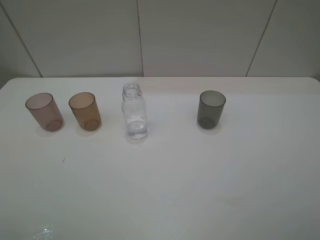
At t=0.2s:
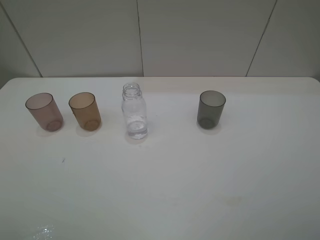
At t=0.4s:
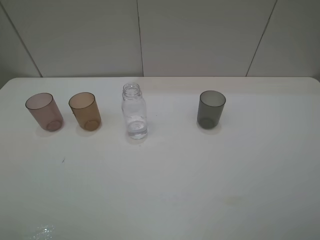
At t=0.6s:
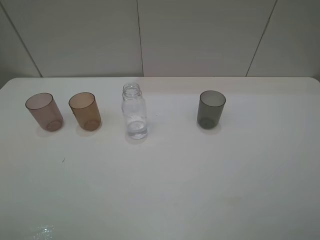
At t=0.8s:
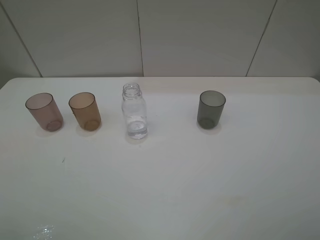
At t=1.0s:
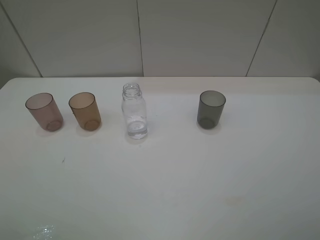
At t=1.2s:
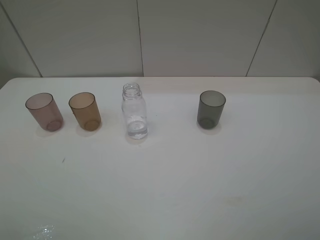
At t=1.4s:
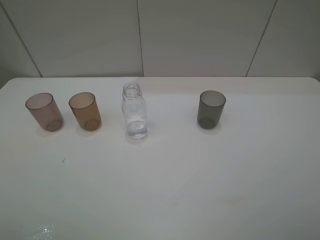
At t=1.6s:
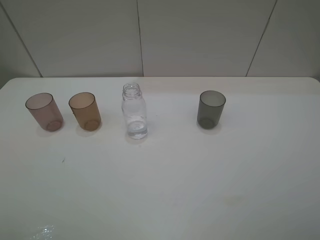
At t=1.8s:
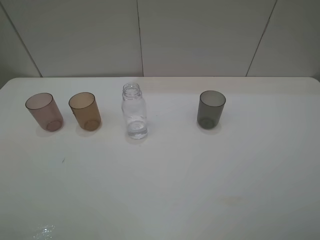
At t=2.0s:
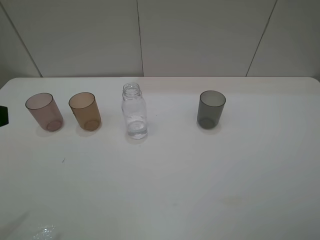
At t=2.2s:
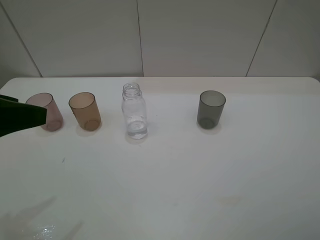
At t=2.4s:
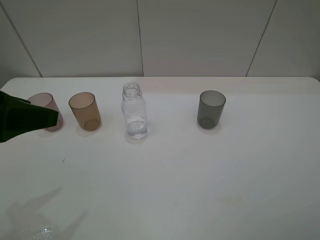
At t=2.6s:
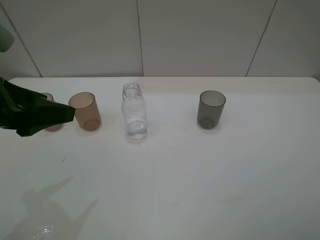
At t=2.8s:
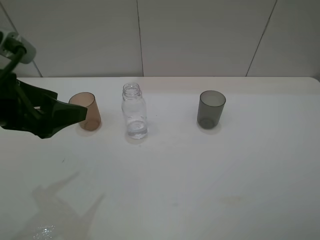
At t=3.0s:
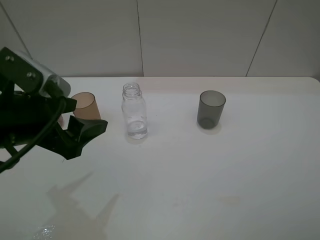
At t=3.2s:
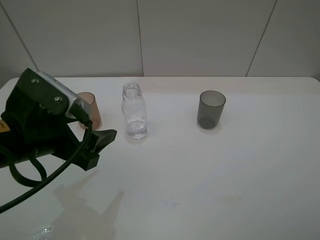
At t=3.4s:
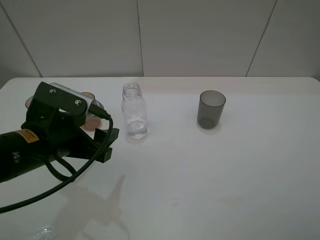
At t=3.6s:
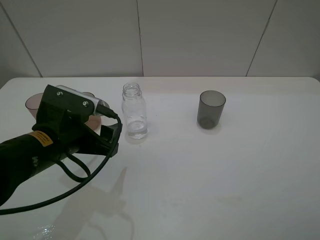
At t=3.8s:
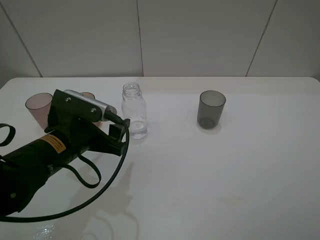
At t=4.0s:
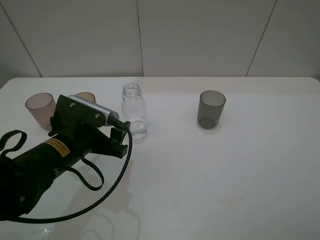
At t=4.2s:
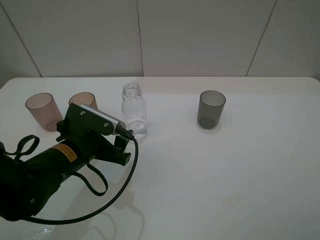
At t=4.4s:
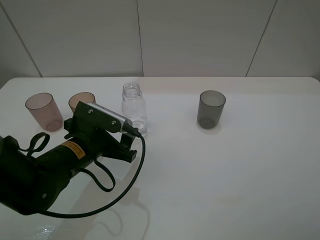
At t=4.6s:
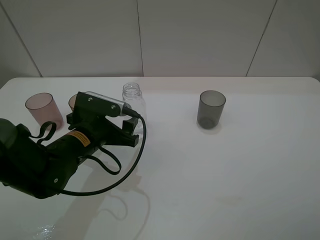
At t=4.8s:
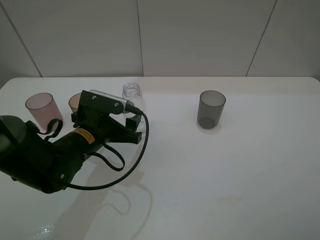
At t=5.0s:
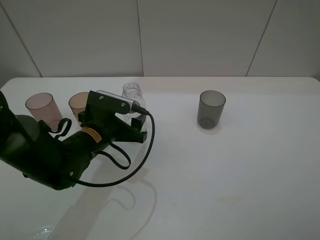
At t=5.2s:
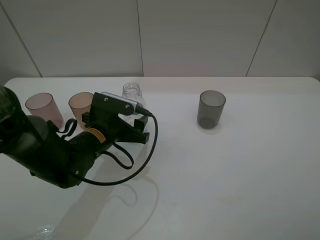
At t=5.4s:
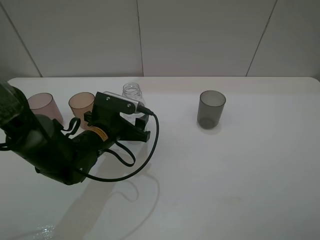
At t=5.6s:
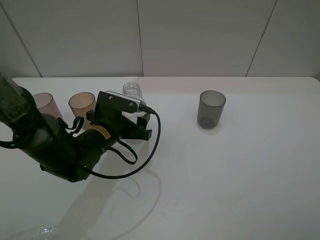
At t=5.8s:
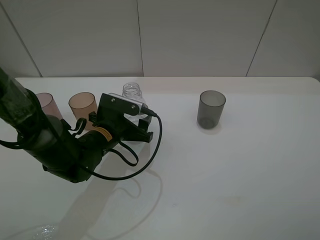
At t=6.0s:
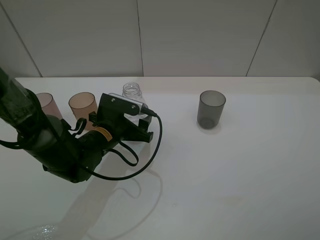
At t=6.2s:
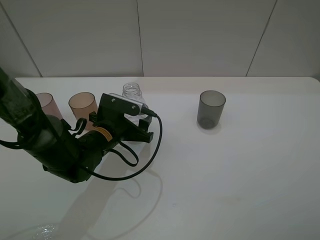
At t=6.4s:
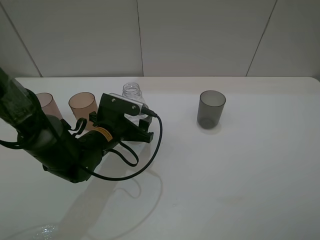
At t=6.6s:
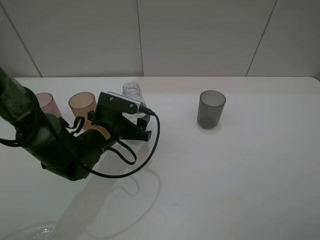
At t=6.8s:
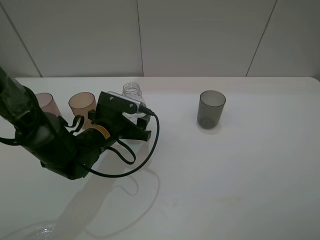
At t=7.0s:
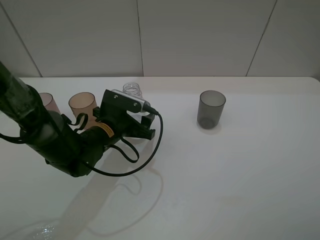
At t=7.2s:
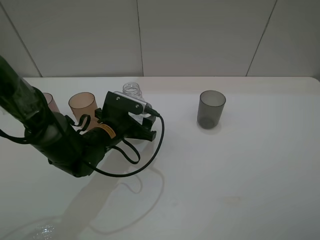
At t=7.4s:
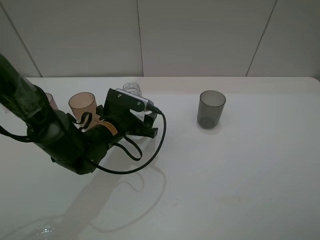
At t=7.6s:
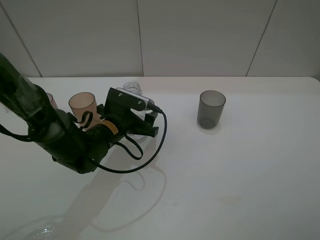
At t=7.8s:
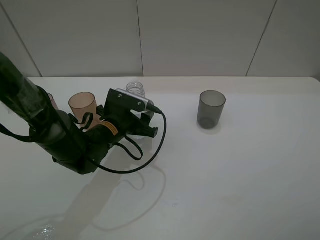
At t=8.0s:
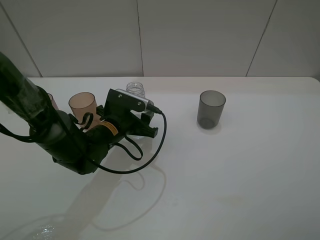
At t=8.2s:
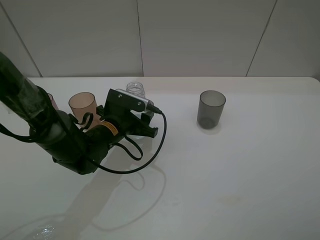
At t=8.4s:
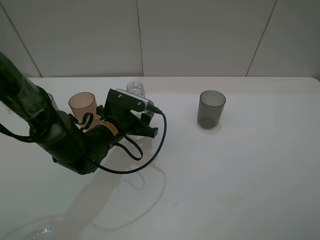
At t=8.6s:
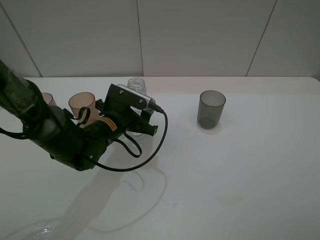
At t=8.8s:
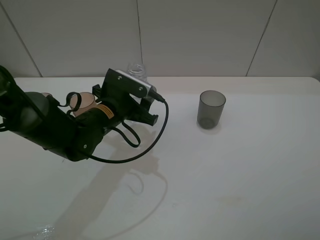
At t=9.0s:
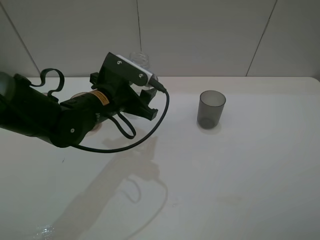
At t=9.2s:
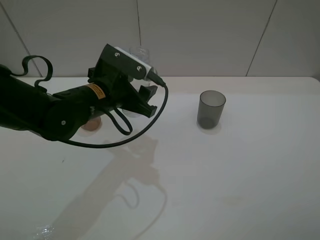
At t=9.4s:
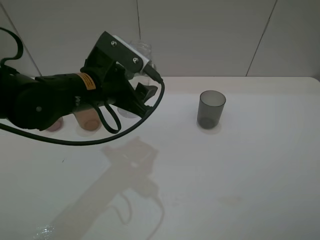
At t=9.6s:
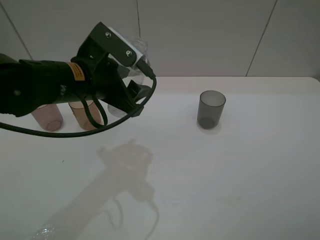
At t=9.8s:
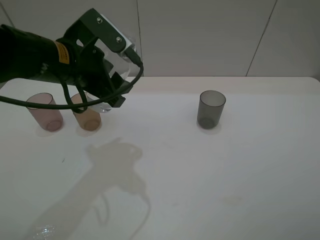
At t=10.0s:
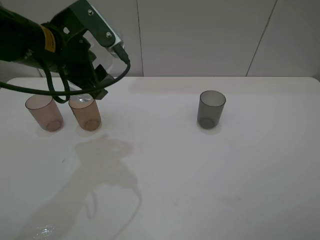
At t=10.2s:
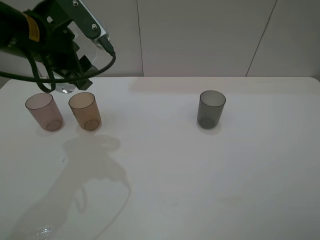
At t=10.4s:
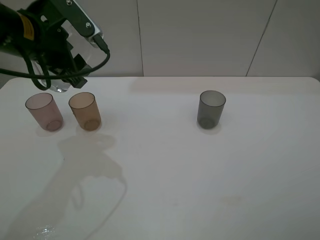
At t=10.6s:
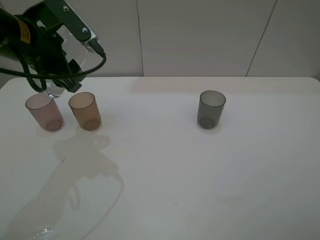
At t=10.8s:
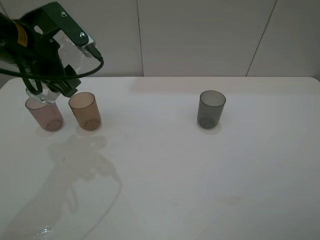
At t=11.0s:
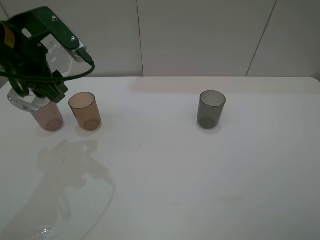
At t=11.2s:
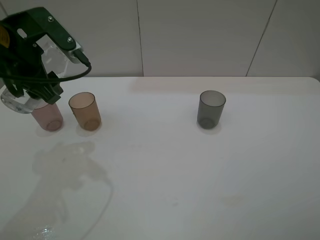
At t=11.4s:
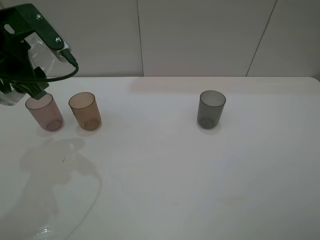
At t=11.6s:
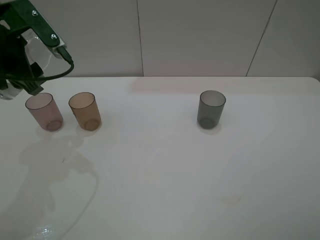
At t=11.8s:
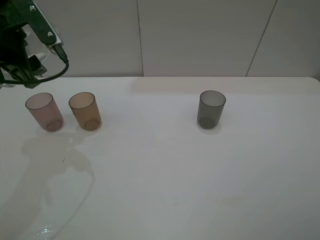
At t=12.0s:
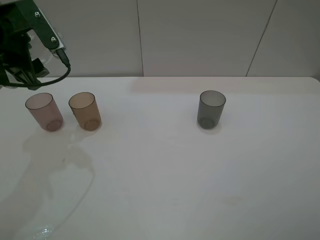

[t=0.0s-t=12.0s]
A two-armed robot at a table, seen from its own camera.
Task of the whole recording: pick up the bottle filled with water and pour water into the middle cup of the three cups.
Step, t=0.0s to t=7.2s: Grasp the transparent bottle with the left gripper.
t=1.6s to t=3.0s: The left gripper shifts about 20 cm forward, to the right and downward.
t=3.0s to t=4.4s: The left gripper shifts some 15 cm downward and to the right.
t=4.4s to t=6.0s: The left gripper travels forward by roughly 5 cm.
t=6.0s to t=7.6s: The grippers move only a little.
t=7.6s to t=9.0s: The left gripper moves upward, about 10 cm, and closes.
t=9.0s to t=10.4s: The left gripper travels upward and to the left by approximately 15 cm.
t=10.4s to t=12.0s: The left gripper heads to the left, covering some 5 cm.

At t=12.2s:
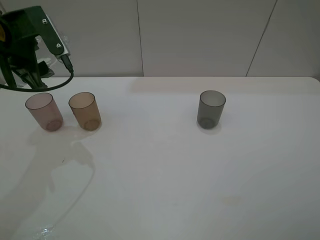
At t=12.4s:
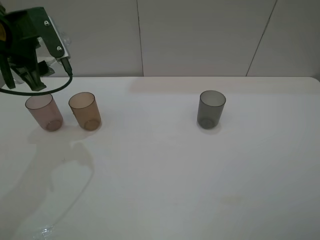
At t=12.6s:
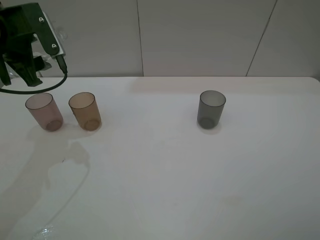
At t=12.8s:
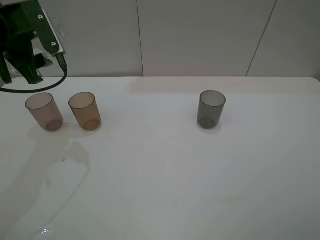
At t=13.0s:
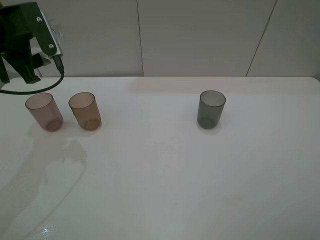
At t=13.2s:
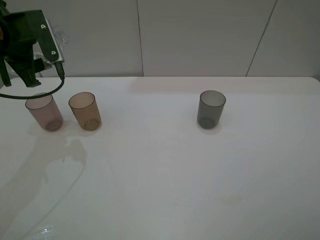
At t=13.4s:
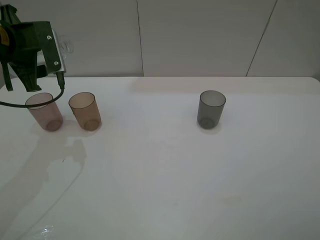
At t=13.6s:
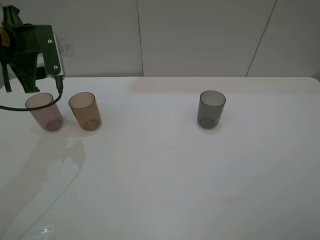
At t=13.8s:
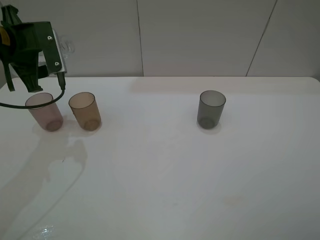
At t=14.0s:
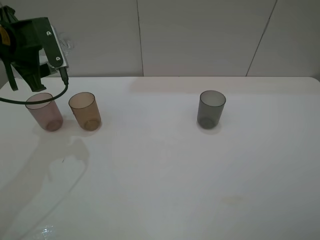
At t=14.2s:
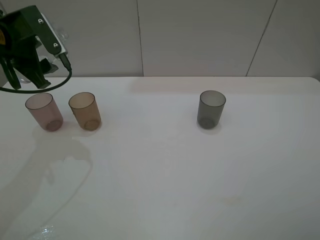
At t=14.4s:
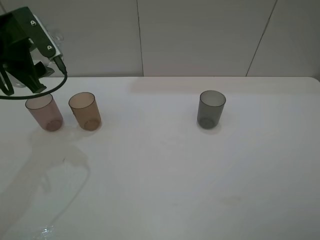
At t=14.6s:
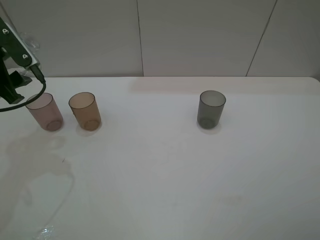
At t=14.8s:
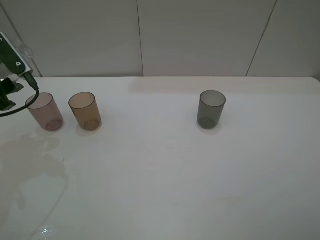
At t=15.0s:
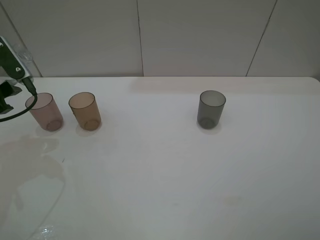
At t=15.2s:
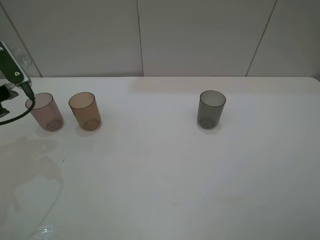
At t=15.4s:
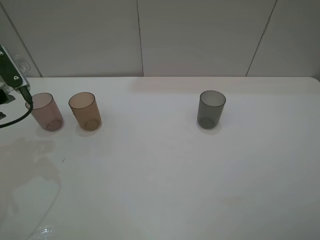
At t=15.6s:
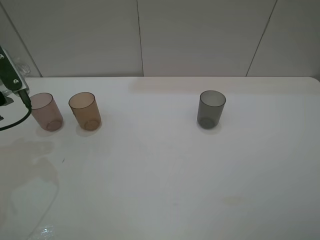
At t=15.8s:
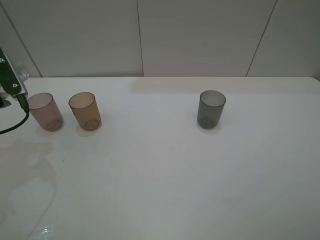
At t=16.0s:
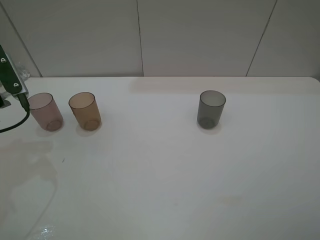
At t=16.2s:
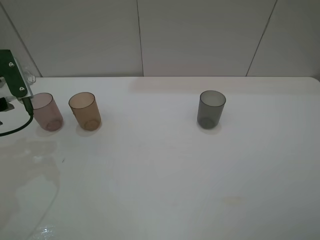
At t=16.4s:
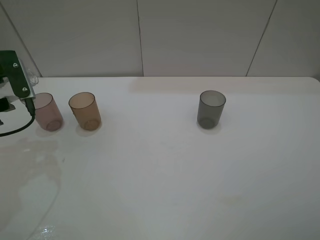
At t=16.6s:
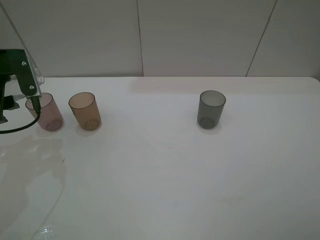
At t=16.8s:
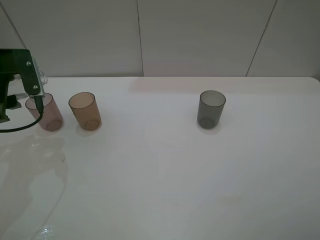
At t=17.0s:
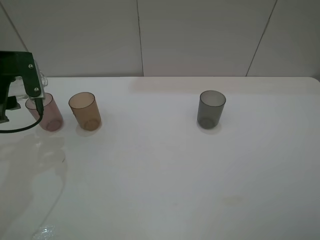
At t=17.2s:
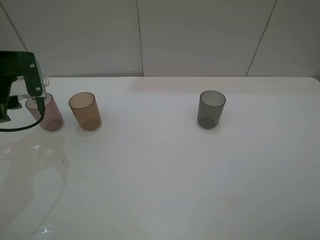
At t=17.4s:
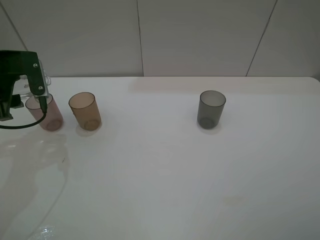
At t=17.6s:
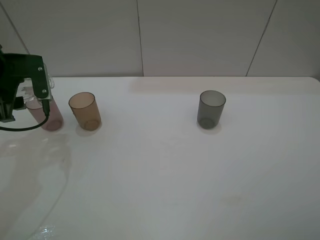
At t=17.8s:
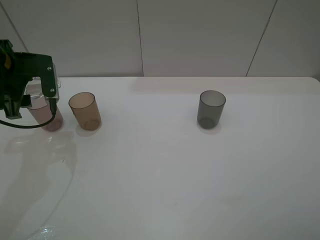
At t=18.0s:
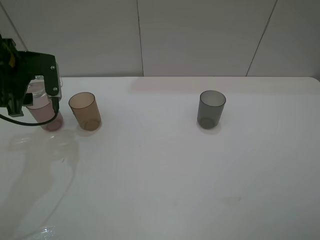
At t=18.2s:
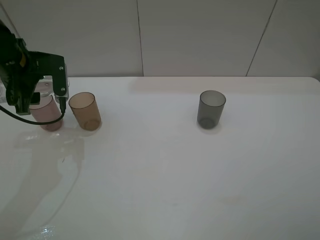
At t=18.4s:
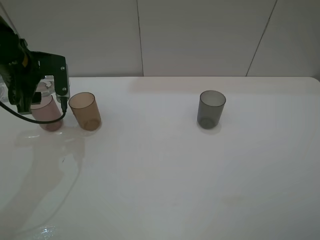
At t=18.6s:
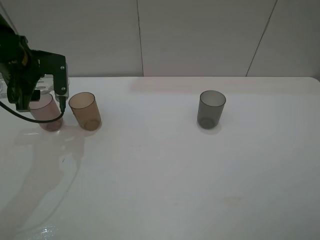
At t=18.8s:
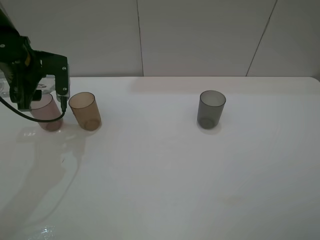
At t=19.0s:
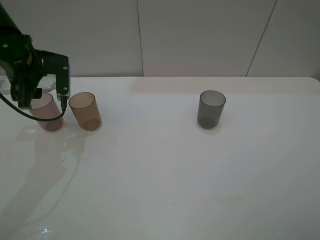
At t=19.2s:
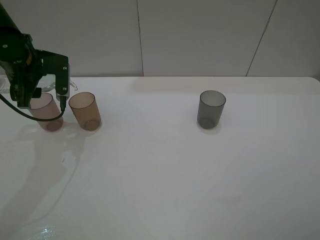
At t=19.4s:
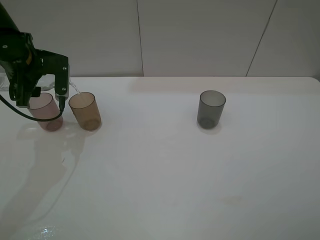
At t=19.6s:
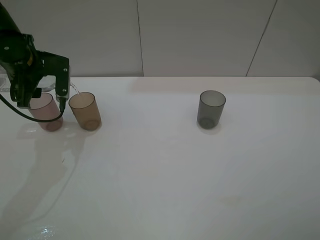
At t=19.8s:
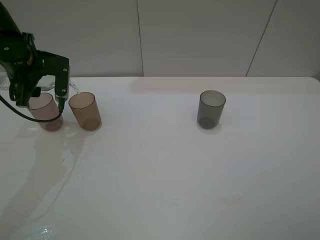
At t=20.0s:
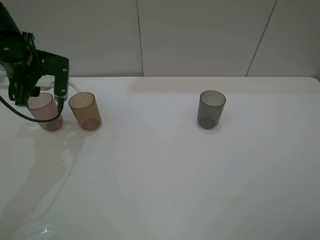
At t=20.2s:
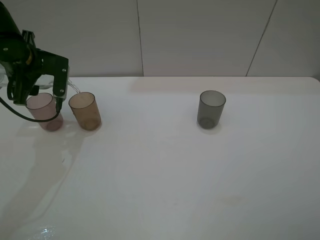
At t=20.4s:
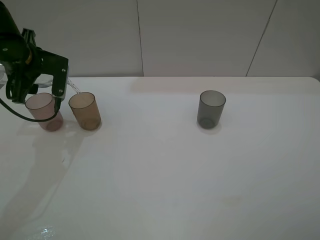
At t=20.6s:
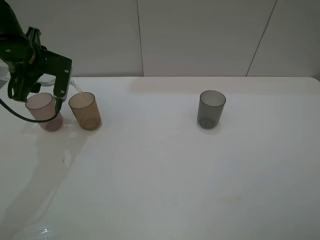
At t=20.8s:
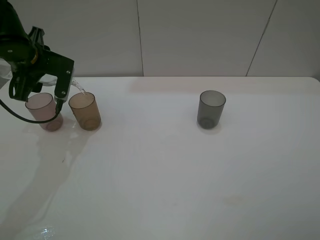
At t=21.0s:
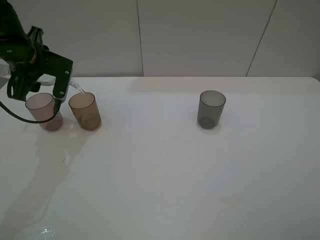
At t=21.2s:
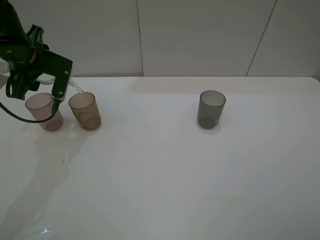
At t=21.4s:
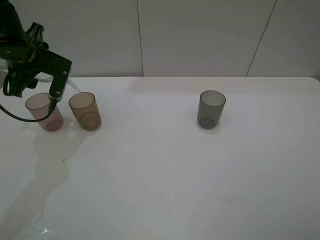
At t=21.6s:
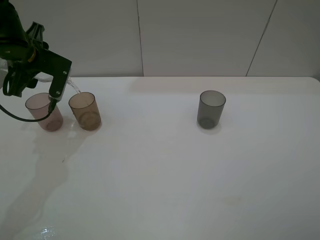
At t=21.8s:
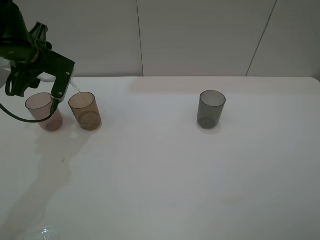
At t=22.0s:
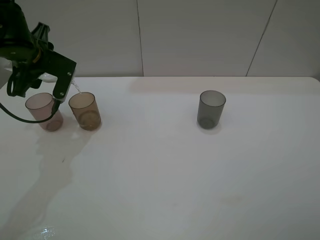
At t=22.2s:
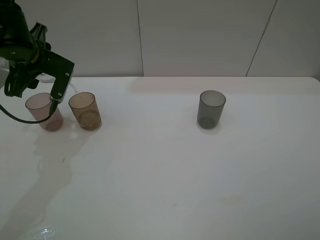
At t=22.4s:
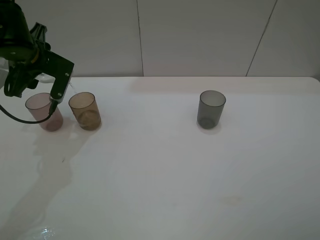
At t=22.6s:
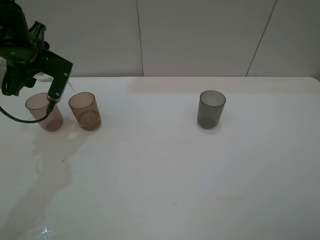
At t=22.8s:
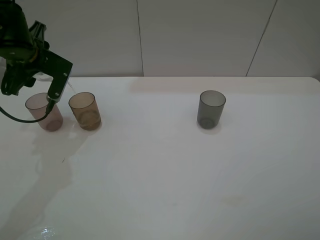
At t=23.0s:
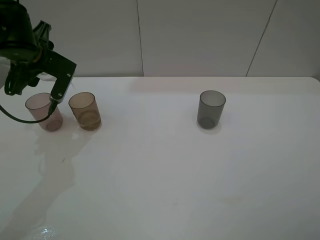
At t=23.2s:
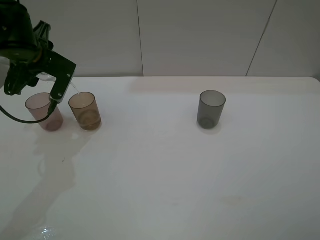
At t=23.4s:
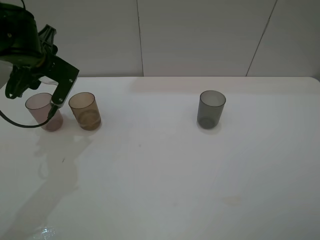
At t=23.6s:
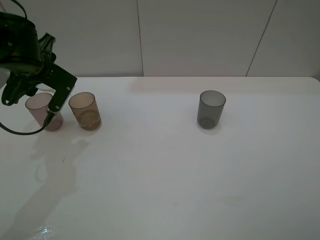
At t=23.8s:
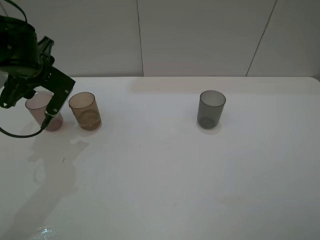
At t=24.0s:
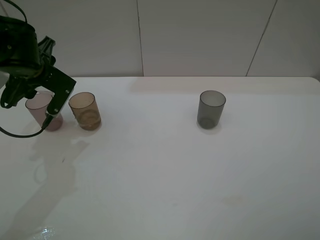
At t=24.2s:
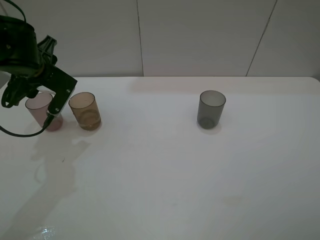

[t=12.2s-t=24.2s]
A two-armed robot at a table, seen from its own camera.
Task of the whole recording: pick up the bottle filled with water and pour water into the middle cup of the three cups.
t=13.8s to t=15.2s: The left gripper shifts about 10 cm backward and to the left.
t=15.2s to t=16.6s: There are only small adjustments of the grippers.
t=16.6s to t=18.2s: The left gripper ends up about 5 cm from where it was.
t=18.2s to t=19.8s: The grippers make only small movements.
t=19.8s to t=22.6s: The grippers move only a little.
t=22.6s to t=24.2s: The grippers move only a little.
